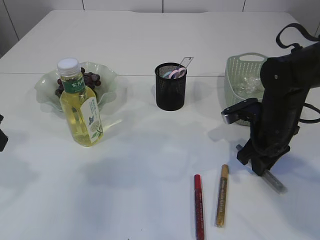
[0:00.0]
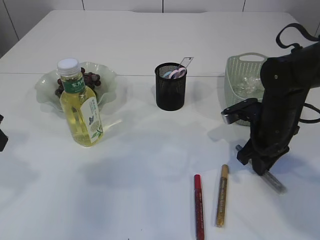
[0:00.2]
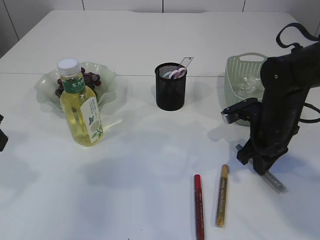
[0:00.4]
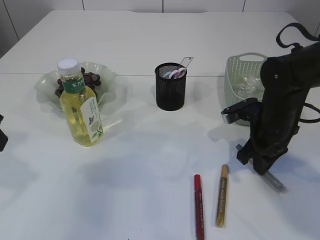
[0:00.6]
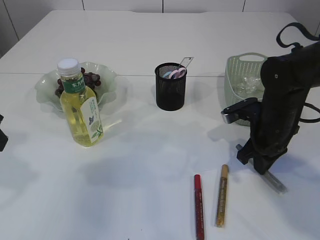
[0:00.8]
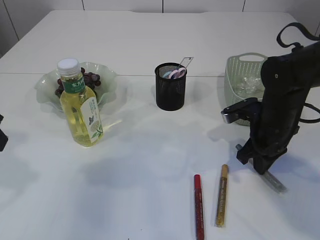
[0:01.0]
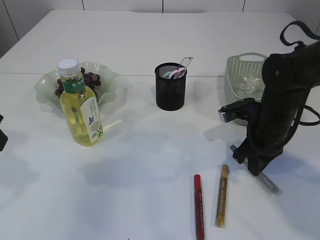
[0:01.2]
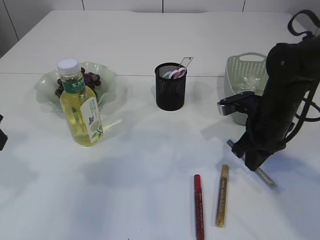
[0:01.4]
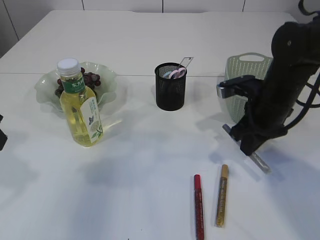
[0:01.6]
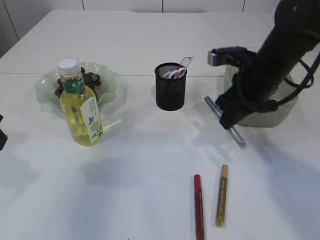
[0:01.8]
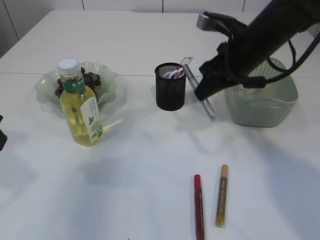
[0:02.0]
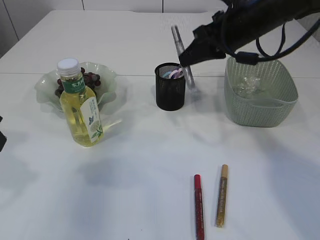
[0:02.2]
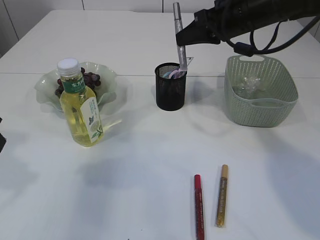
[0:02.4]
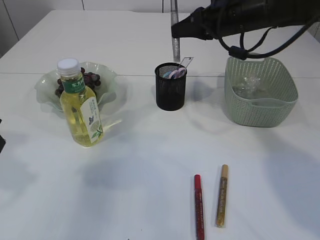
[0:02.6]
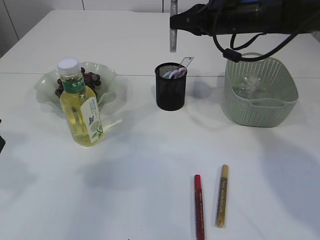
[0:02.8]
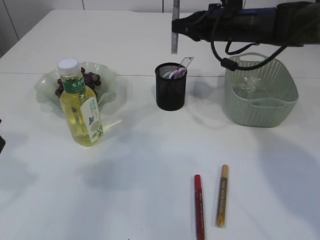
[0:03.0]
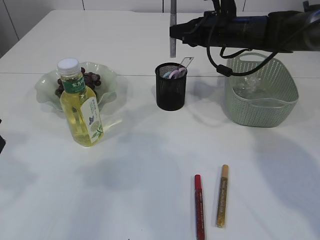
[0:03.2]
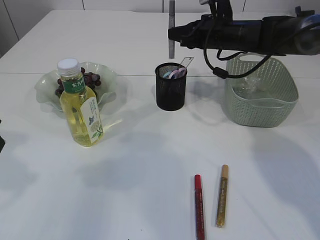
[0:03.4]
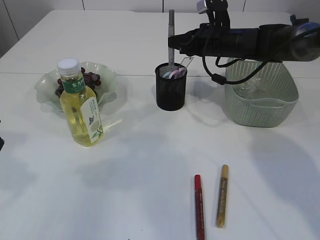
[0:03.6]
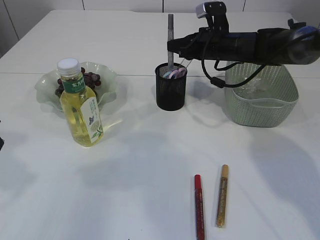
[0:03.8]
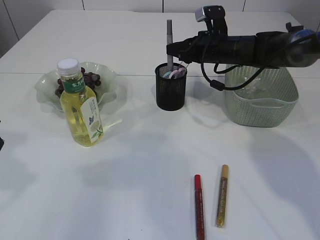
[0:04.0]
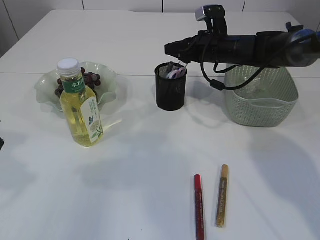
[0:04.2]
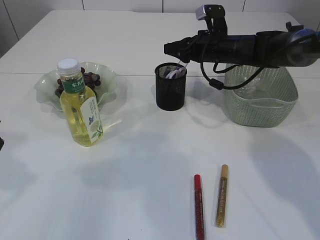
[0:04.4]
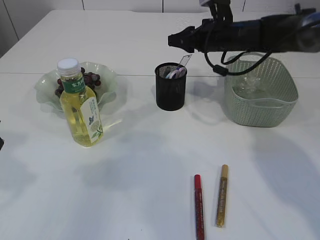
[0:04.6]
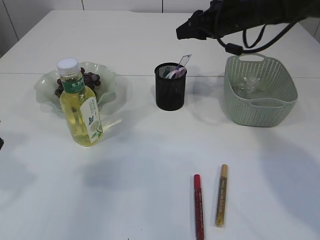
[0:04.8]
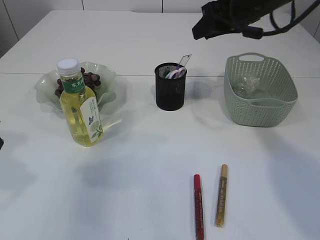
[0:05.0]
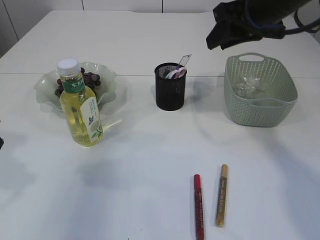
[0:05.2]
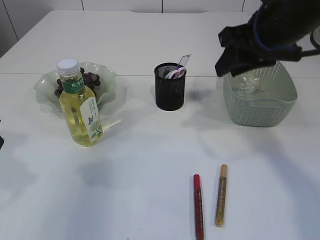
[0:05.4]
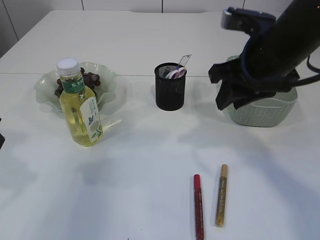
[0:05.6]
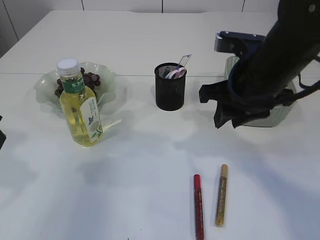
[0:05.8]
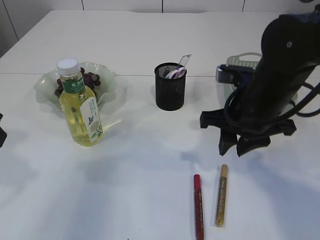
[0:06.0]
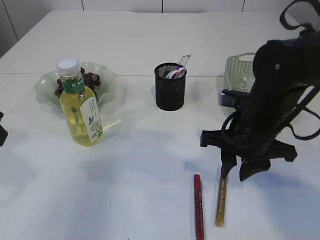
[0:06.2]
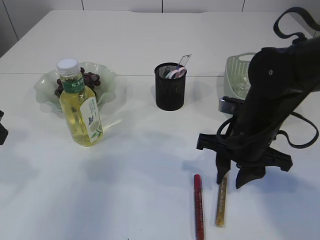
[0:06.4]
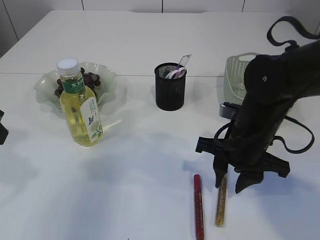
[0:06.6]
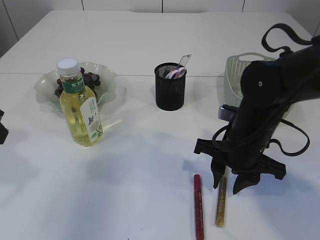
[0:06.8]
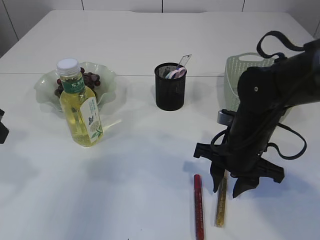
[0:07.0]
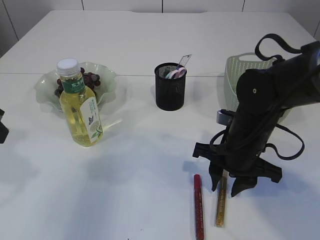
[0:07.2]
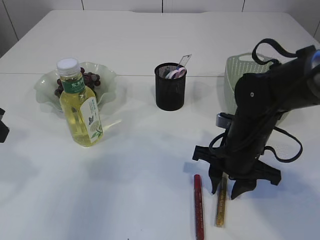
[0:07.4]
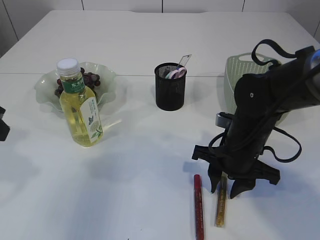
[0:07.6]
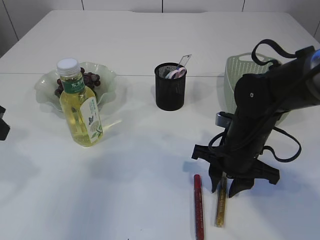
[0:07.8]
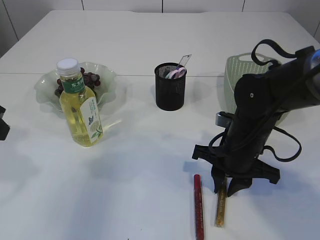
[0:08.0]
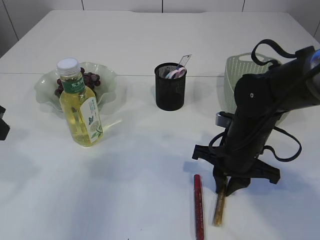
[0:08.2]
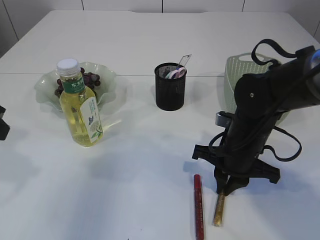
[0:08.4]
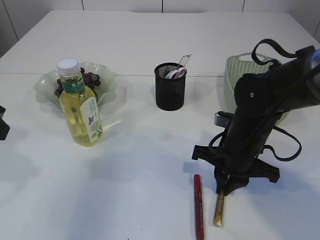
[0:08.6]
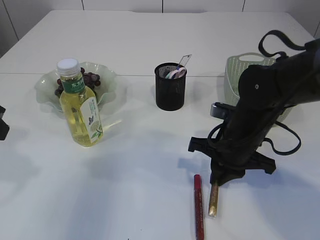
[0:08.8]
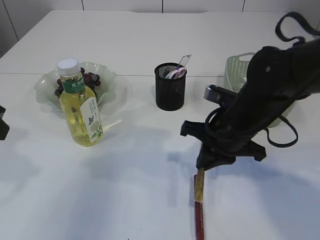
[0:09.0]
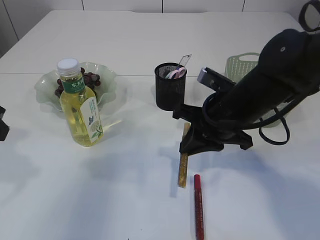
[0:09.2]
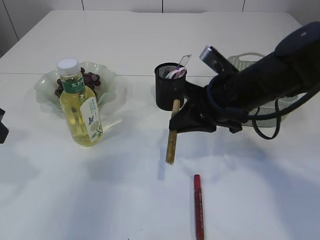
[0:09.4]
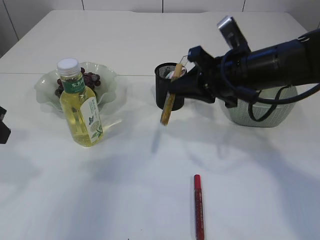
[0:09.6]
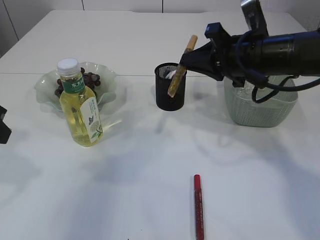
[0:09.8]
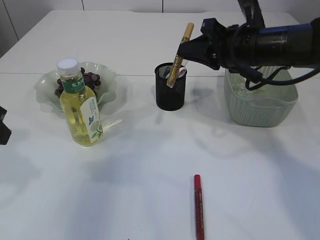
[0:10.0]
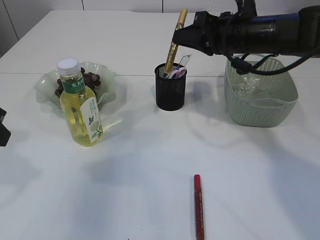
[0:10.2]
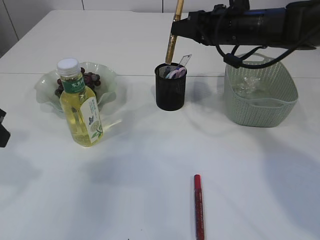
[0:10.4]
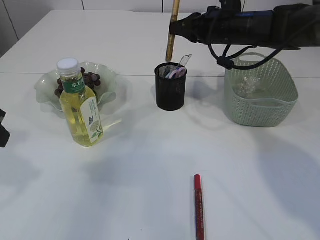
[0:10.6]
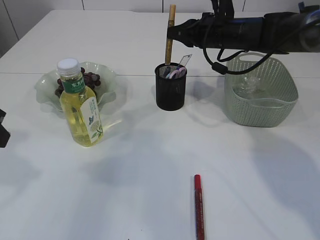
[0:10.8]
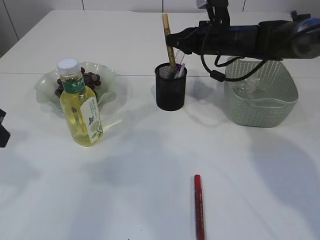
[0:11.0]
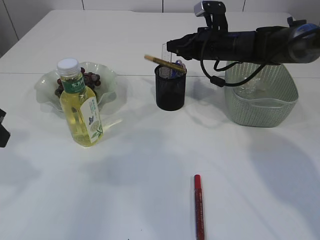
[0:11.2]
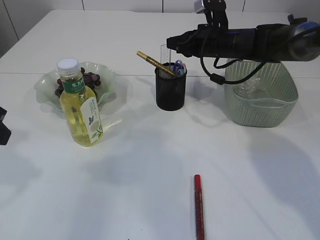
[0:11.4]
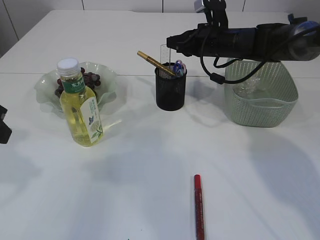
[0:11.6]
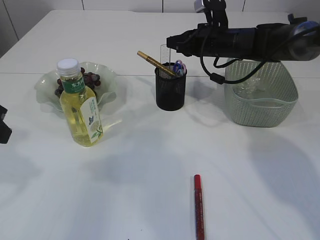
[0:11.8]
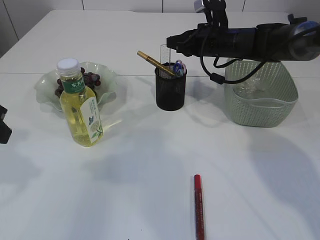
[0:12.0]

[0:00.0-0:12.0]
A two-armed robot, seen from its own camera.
Step, 0:01.8 to 0:05.0: place the silver glue into the pen holder.
Step, 0:05.2 to 0:09.0: pick up the yellow glue.
0:00.0 to 0:01.6: The right gripper closes.
0:01.6 to 0:03.0: The right gripper travels forward and upward by some 15 cm.
0:03.0 to 0:04.4: The right gripper travels downward by approximately 5 cm, and opens up.
0:04.4 to 0:06.0: The right gripper heads backward, covering approximately 20 cm.
0:06.0 to 0:07.6: The right gripper shifts some 10 cm downward.
0:07.6 to 0:09.0: The right gripper closes.
0:09.0 to 0:10.4: The right gripper shifts about 15 cm forward and upward.
0:10.4 to 0:12.0: The right gripper moves forward and downward, some 10 cm.

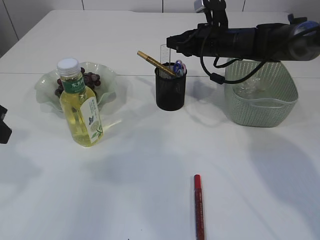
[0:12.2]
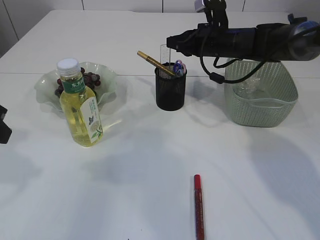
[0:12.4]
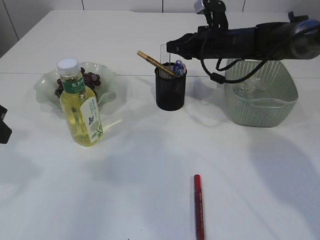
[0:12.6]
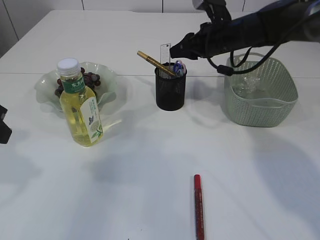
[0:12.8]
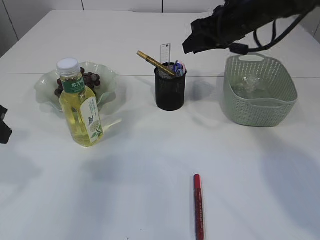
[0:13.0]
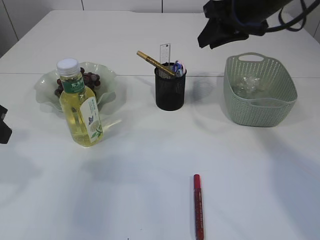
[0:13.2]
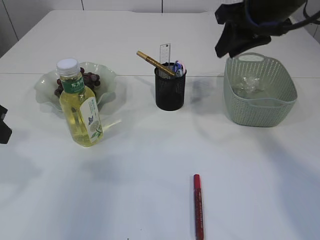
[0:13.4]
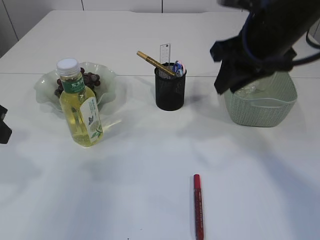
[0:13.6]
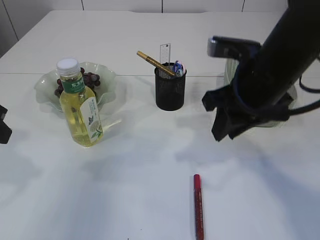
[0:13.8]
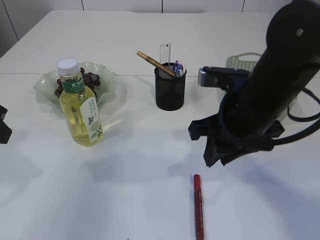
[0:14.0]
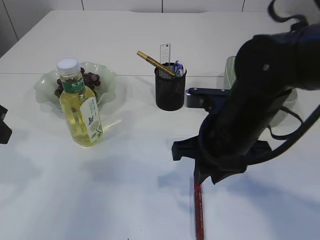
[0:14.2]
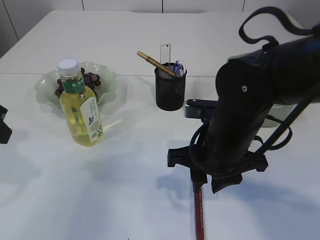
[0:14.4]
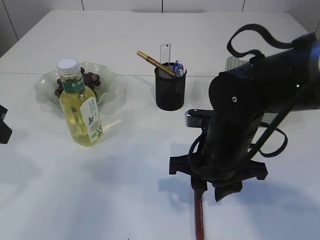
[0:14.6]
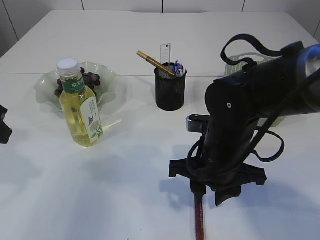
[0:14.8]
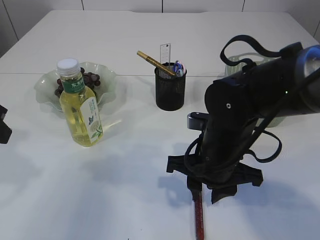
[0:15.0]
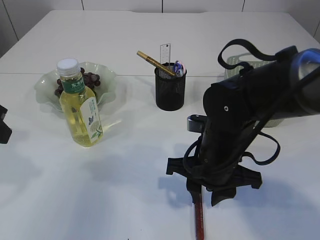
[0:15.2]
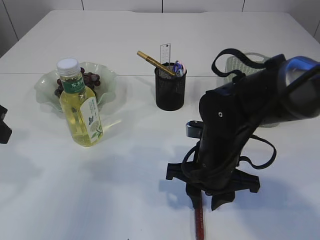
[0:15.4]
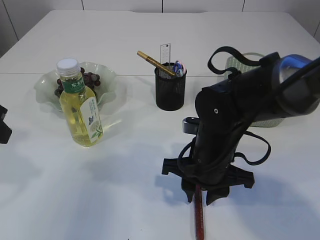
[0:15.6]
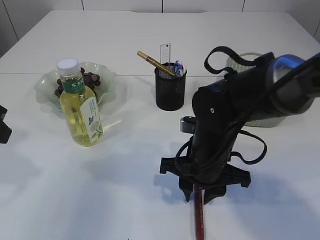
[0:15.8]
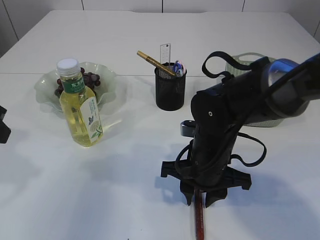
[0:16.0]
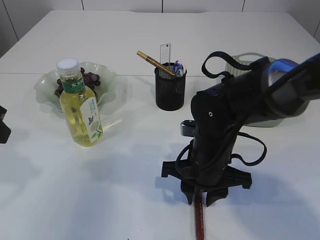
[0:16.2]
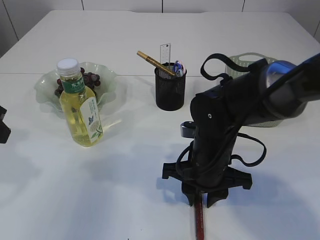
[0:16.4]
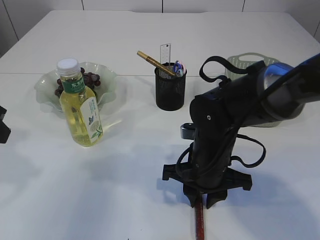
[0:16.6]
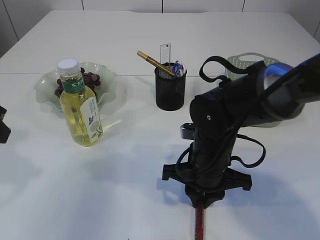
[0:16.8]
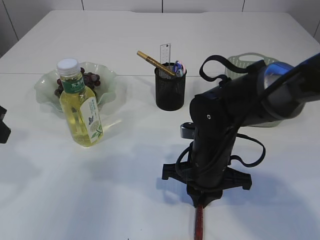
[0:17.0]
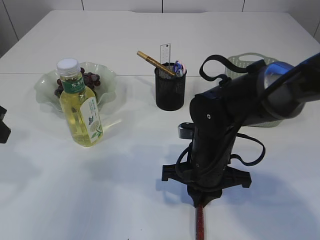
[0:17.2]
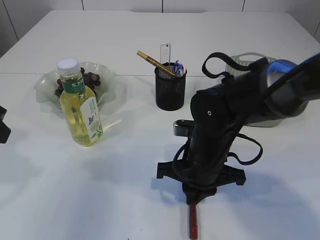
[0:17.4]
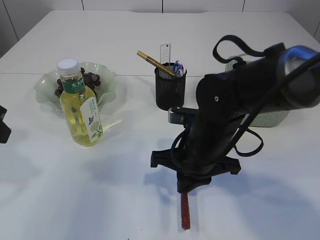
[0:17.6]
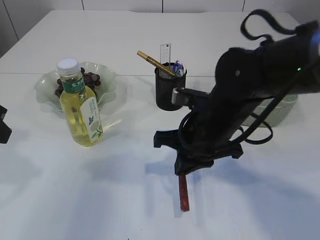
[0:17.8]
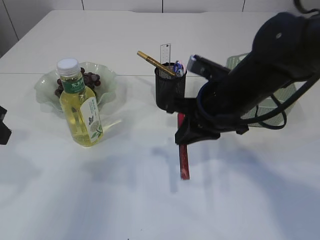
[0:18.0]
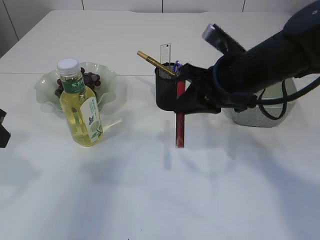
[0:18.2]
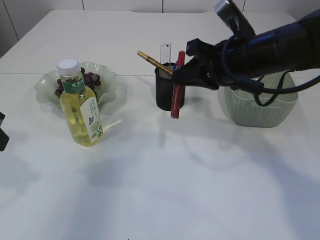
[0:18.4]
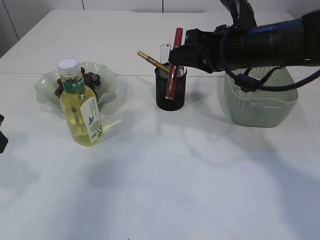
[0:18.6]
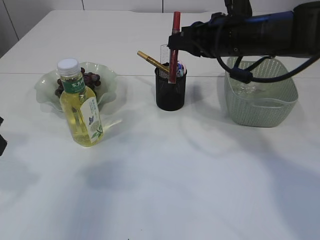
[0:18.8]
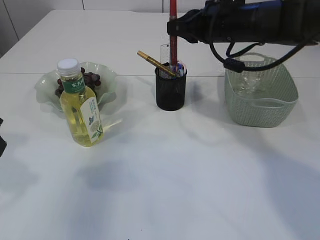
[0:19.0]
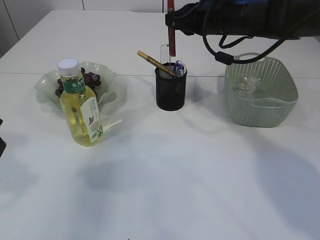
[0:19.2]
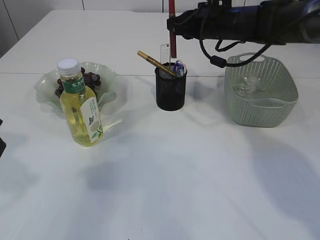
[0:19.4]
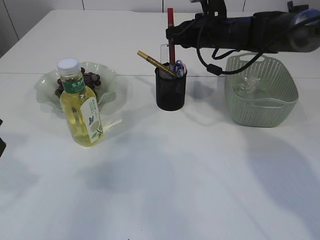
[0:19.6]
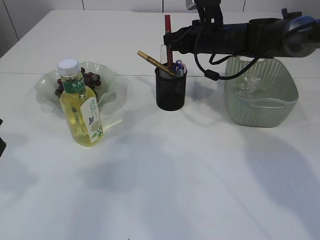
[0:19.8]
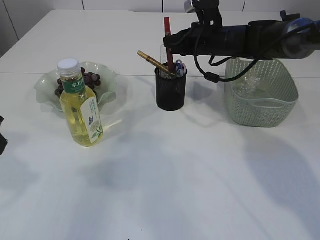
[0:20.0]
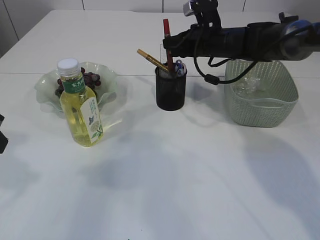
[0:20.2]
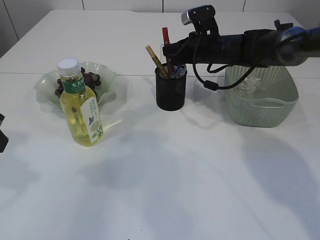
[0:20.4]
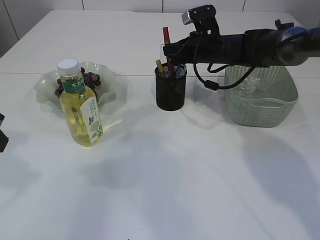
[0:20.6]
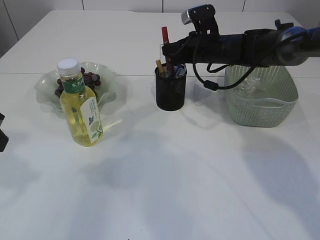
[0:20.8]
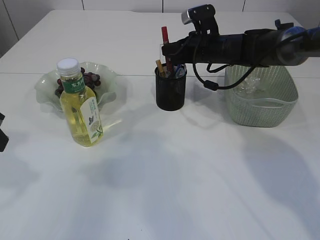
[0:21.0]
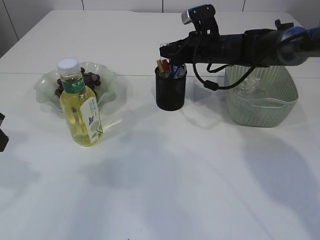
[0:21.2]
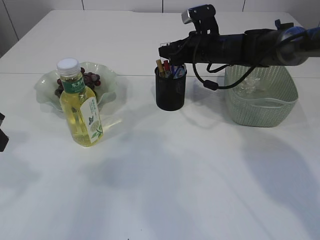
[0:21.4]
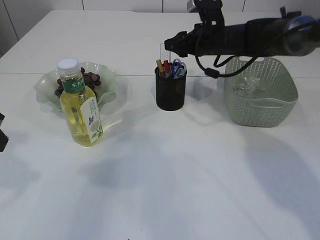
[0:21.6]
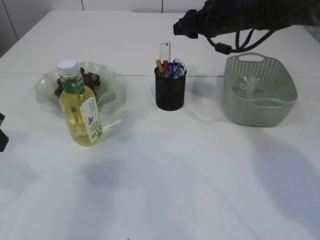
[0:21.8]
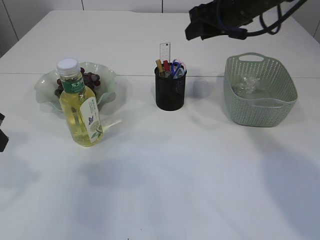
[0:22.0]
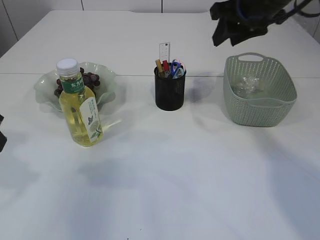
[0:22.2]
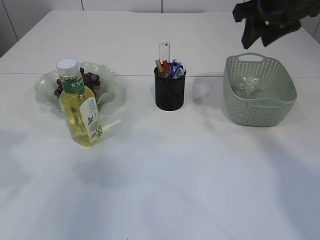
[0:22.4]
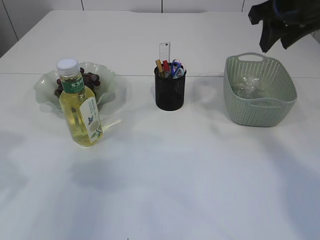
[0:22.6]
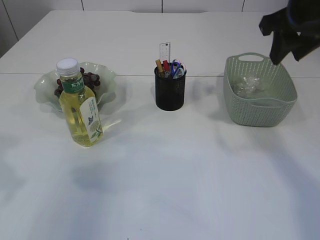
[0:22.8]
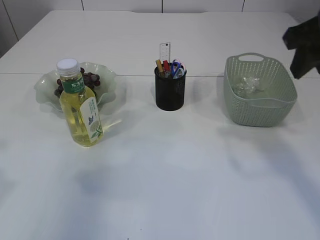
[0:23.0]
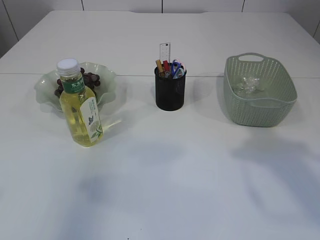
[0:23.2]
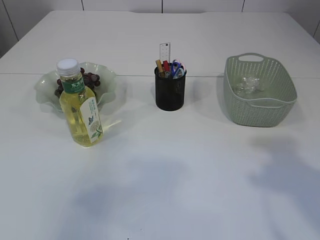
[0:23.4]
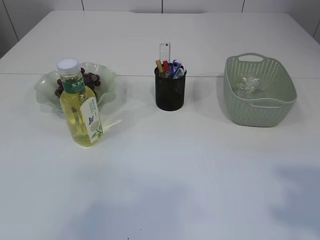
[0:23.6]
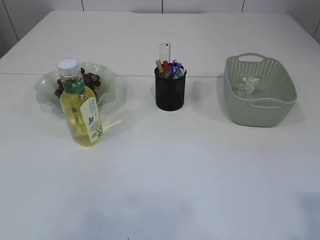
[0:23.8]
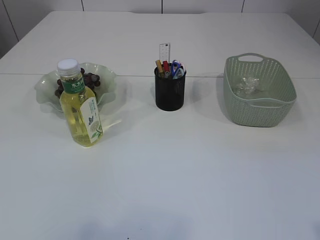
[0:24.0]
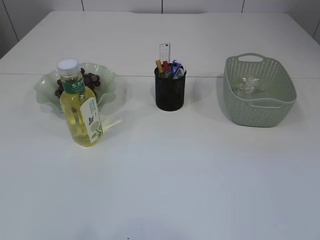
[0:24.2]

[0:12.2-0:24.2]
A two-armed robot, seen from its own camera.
Step, 0:12.6 to 0:17.8: pick up the red glue.
Step, 0:18.0 to 0:21.6: place the red glue into the pen holder.
0:12.2 to 0:13.8: The right gripper is displaced backward by roughly 20 cm.
0:13.8 to 0:15.2: The right gripper shifts roughly 15 cm downward and to the left.
0:15.2 to 0:16.6: The grippers stay close to where they were, moving slightly.
0:16.6 to 0:18.2: The right gripper shifts some 10 cm upward, and closes up.
0:18.2 to 0:19.8: The right gripper moves forward, roughly 20 cm.
0:19.8 to 0:21.2: The right gripper opens its fingers.
0:21.2 to 0:22.6: The right gripper shifts about 20 cm upward, backward and to the right.
0:22.6 to 0:24.2: The right gripper moves backward, approximately 40 cm, while the left gripper is displaced backward and upward by approximately 25 cm.
